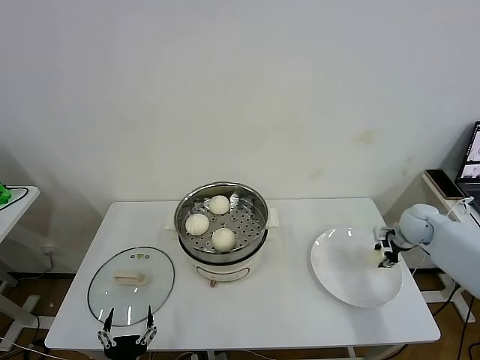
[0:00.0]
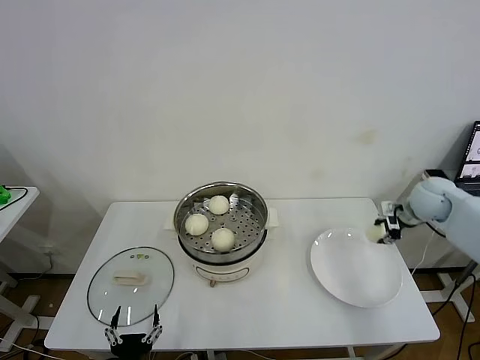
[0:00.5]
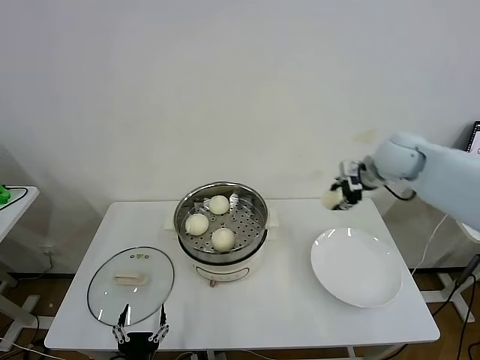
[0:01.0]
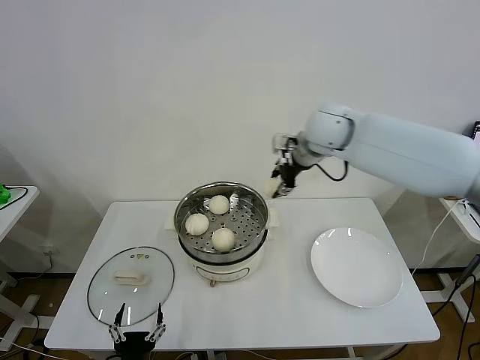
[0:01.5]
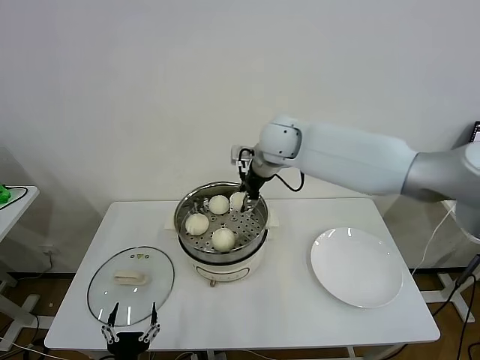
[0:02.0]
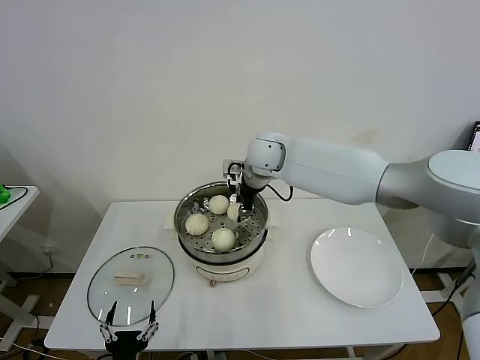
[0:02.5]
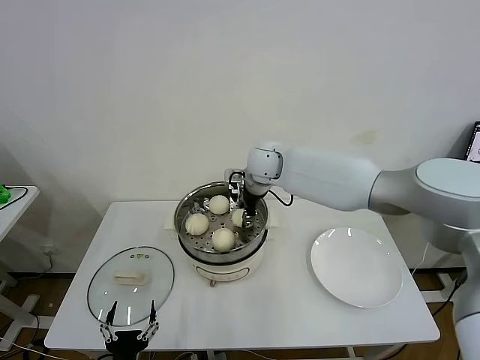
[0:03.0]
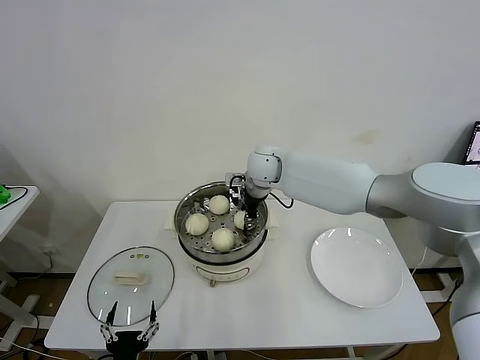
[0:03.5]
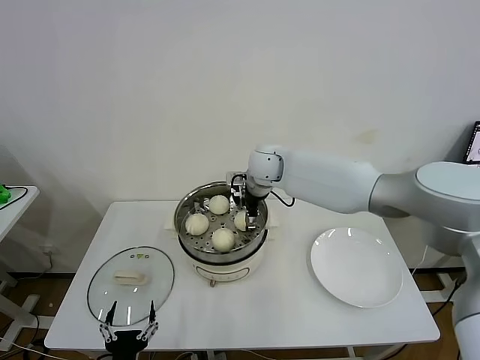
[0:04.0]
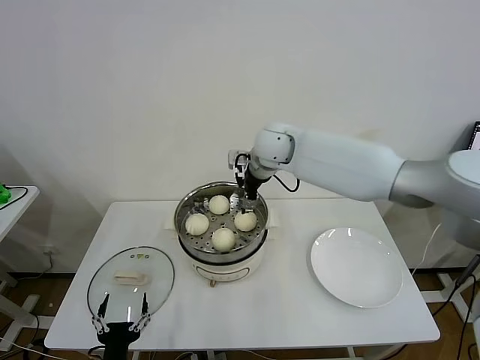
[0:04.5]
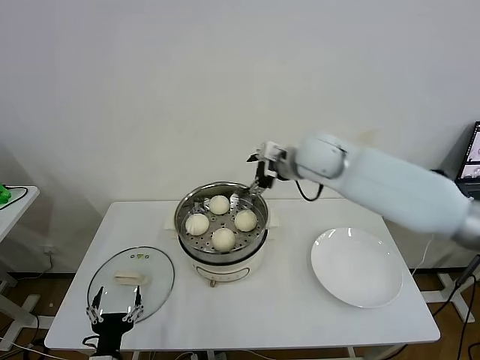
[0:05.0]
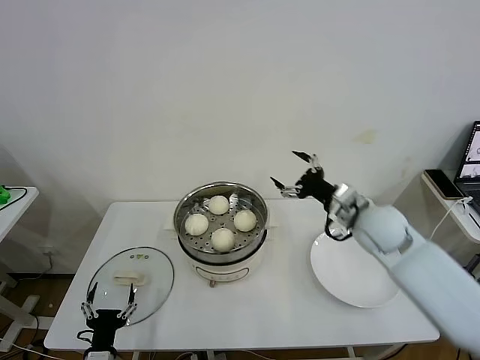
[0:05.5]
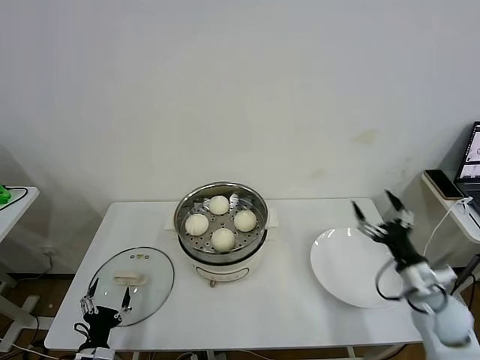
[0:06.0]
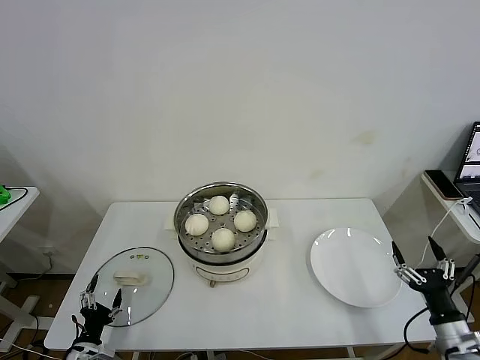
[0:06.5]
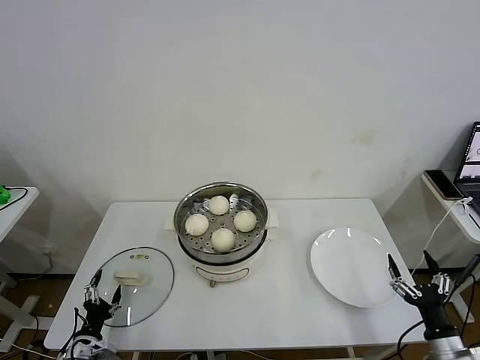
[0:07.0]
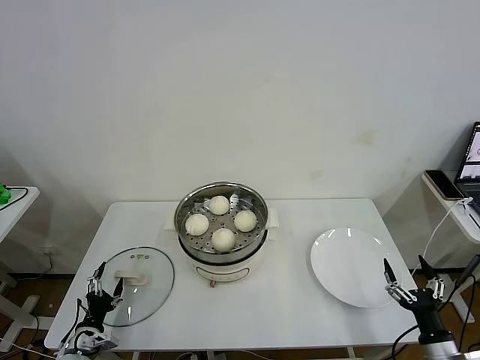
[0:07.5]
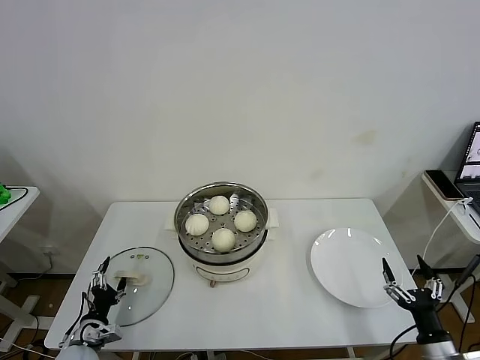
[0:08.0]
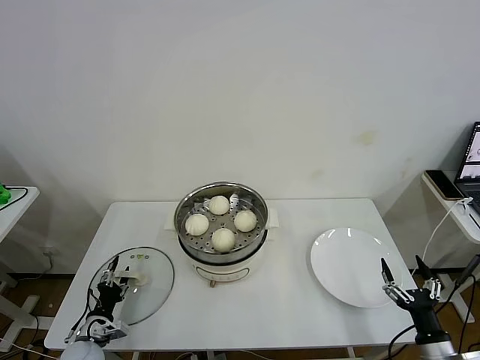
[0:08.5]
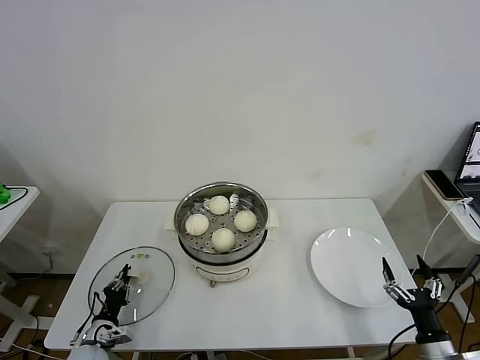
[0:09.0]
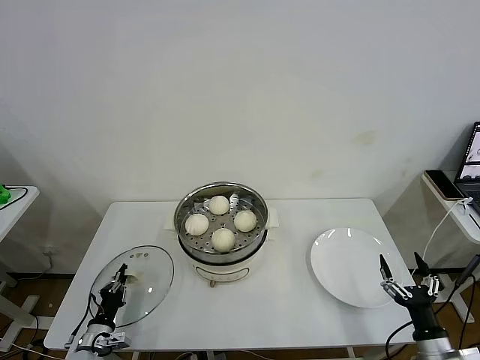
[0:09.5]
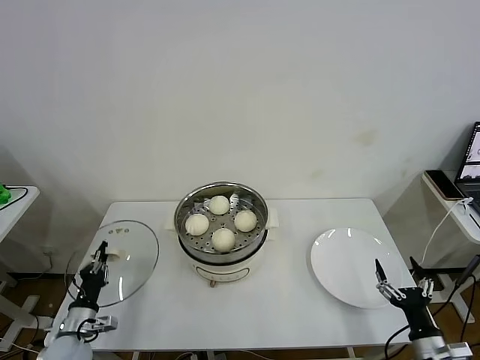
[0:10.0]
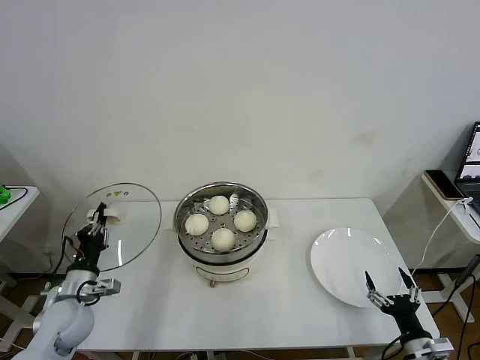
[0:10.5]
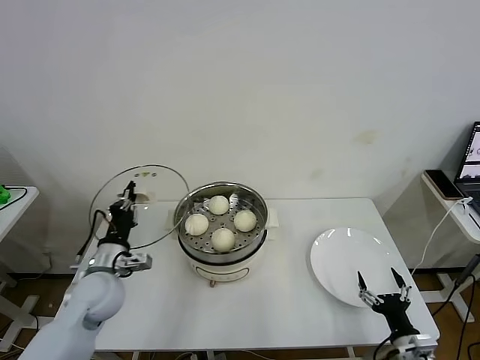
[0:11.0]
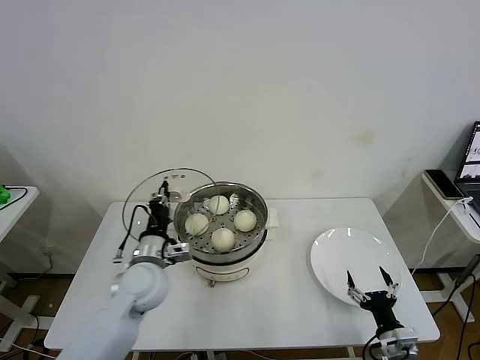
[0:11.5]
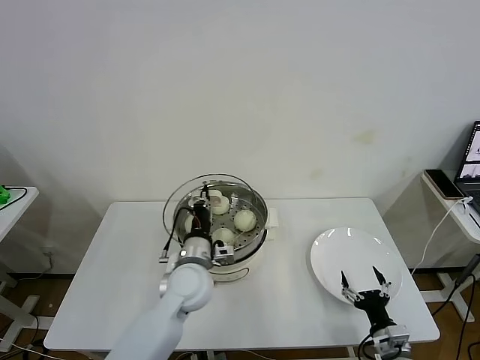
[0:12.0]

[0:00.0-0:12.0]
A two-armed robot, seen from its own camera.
Task of the whole recording: take steamed baozi put them in steamer then cover it.
Step, 0:00.0 to 0:04.0: Place the baozi on the steamer with right gripper.
Step, 0:04.5 to 0:09.0: Grasp the pot lid with left gripper.
0:00.0 to 0:02.0: The right gripper travels to the left and upward by about 40 cm.
0:02.0 to 0:04.0: The right gripper goes some 5 cm downward, and opens its fingers.
0:04.0 to 0:06.0: The right gripper heads to the right, backward and downward, covering about 50 cm. Meanwhile the left gripper moves to the left and forward, about 10 cm.
0:06.0 to 0:08.0: The right gripper is displaced backward and downward by approximately 15 cm, while the left gripper moves forward and to the left, about 10 cm.
0:08.0 to 0:10.0: The left gripper closes.
0:10.0 to 0:12.0: The left gripper goes some 30 cm to the right and upward, while the right gripper travels to the left by some 5 cm.

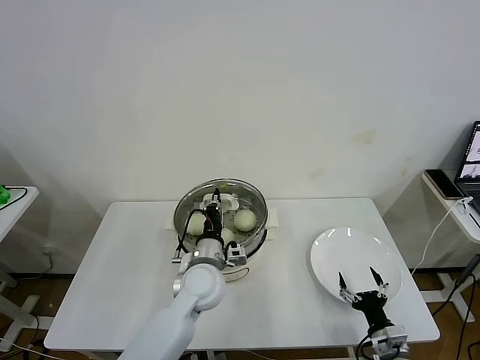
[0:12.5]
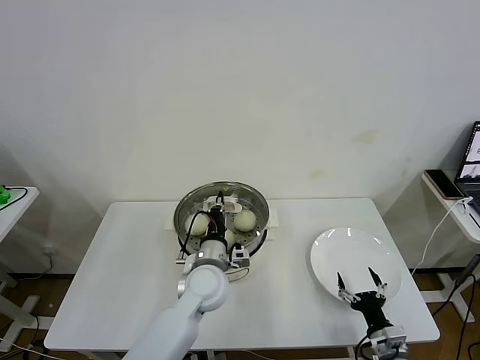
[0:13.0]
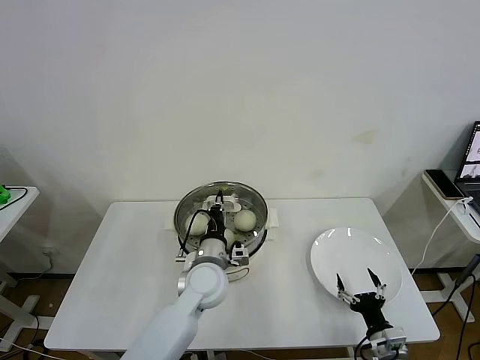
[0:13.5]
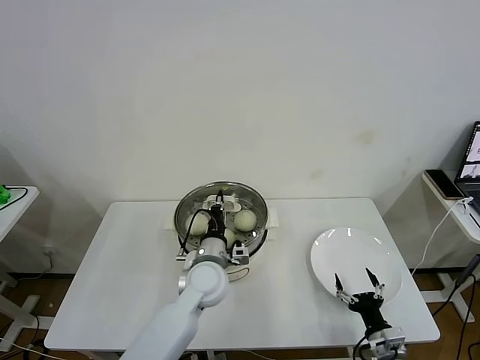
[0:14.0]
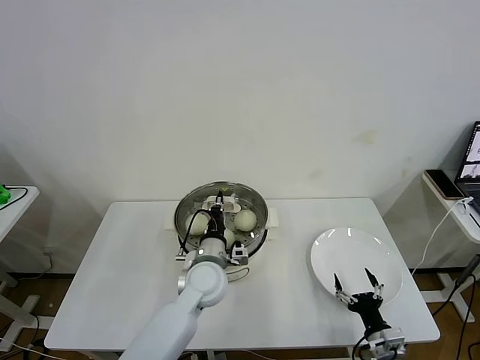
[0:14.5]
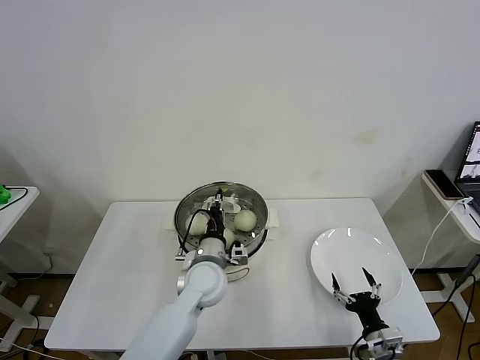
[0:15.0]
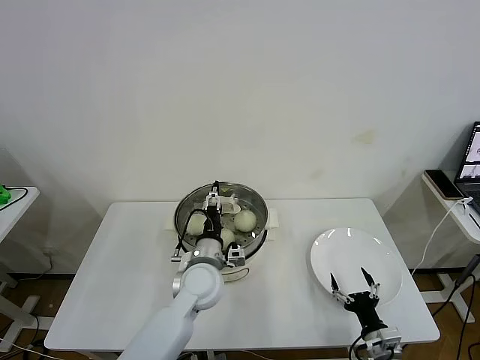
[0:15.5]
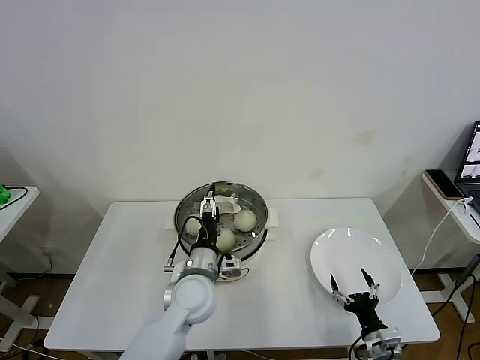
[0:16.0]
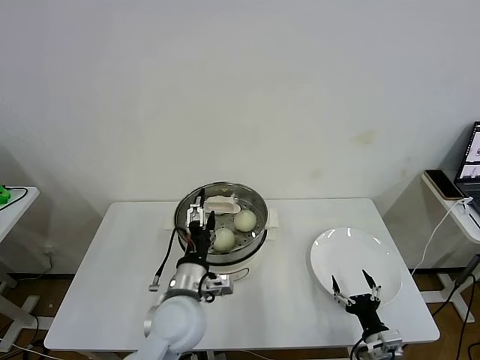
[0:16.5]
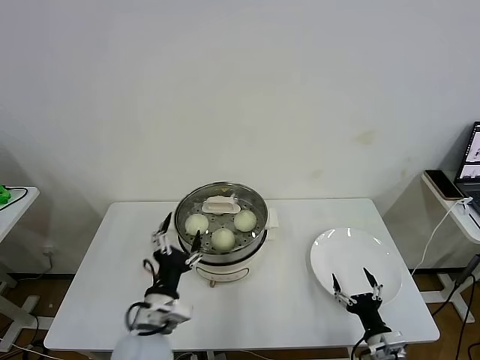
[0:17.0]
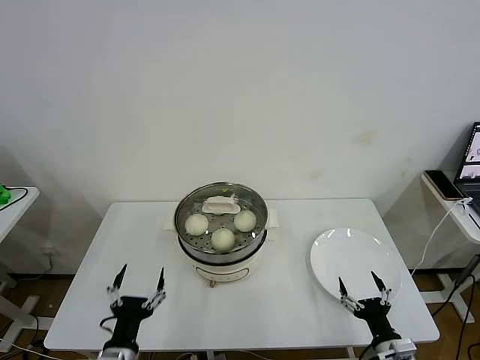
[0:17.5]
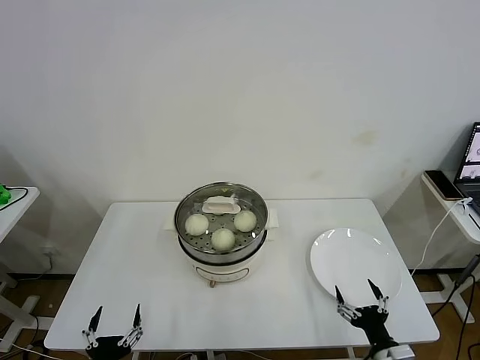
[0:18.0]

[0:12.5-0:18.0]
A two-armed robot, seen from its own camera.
Task of the whole recording: take steamed baozi put them in steamer then cover it.
Step, 0:12.5 to 0:15.0: Place the pot lid on the steamer with left gripper.
0:12.5 to 0:14.5: The grippers make only small movements.
0:14.5 to 0:16.0: The left gripper opens up.
0:16.0 to 0:18.0: The right gripper ends up approximately 5 cm from where it was; the left gripper travels backward and to the left by roughly 30 cm.
